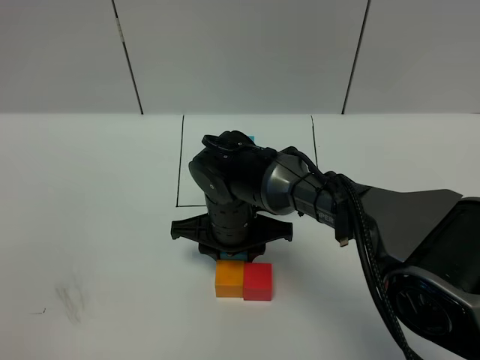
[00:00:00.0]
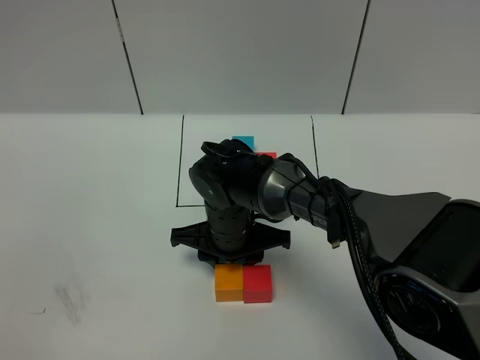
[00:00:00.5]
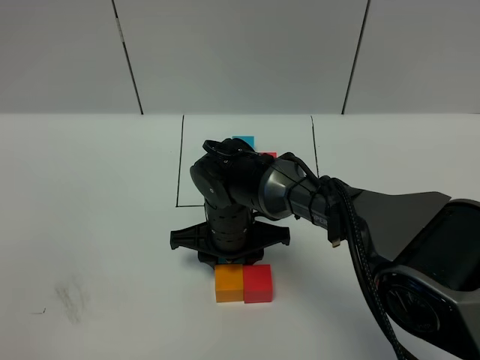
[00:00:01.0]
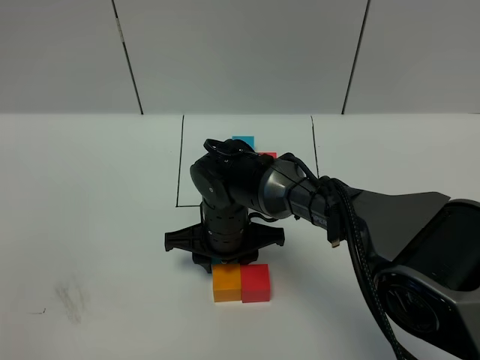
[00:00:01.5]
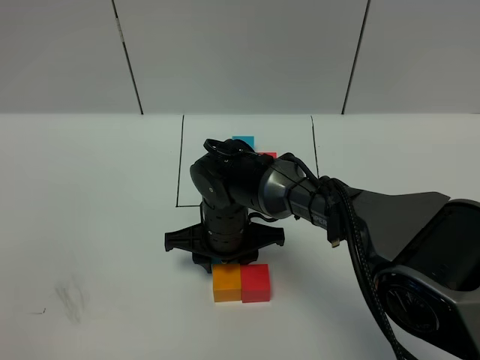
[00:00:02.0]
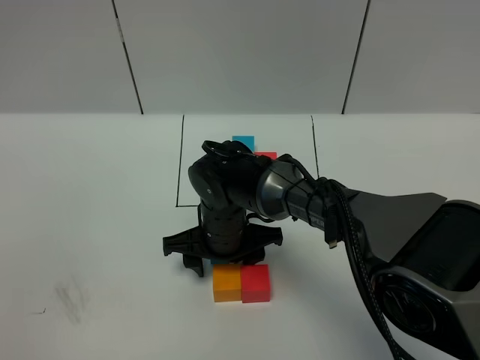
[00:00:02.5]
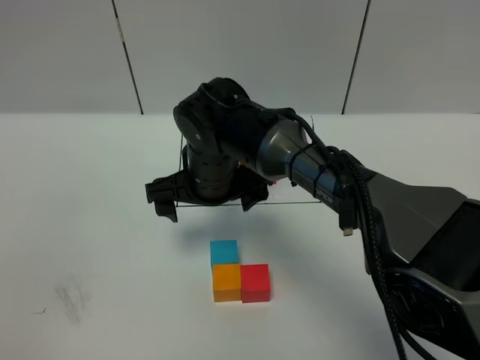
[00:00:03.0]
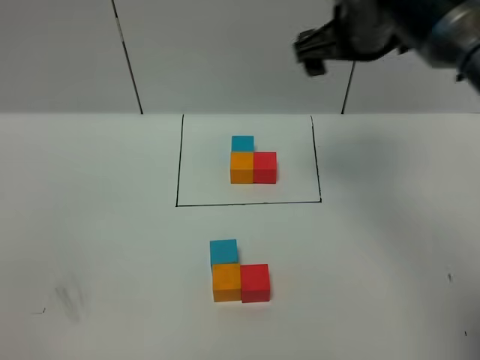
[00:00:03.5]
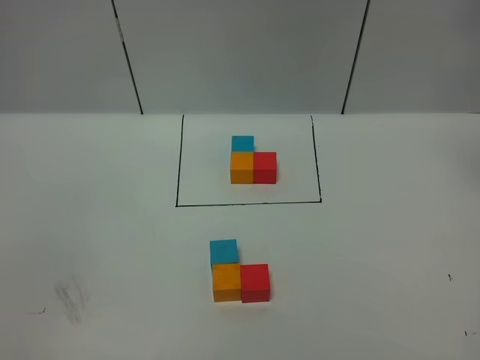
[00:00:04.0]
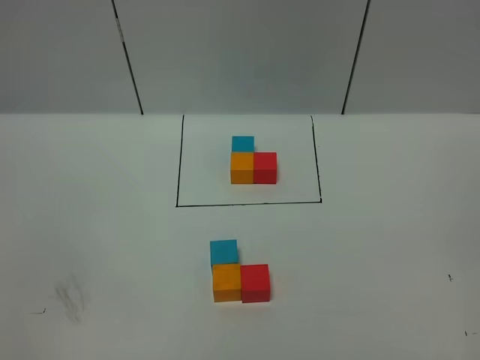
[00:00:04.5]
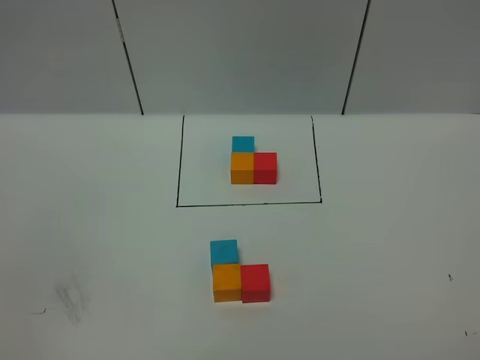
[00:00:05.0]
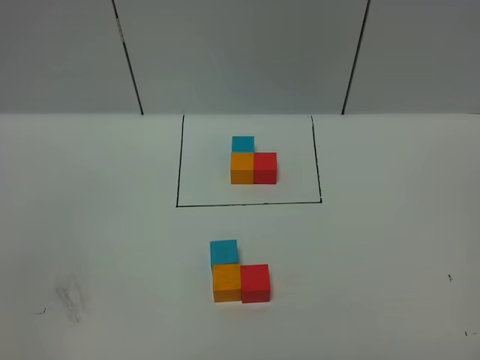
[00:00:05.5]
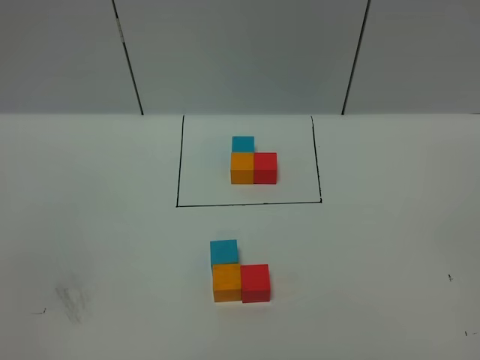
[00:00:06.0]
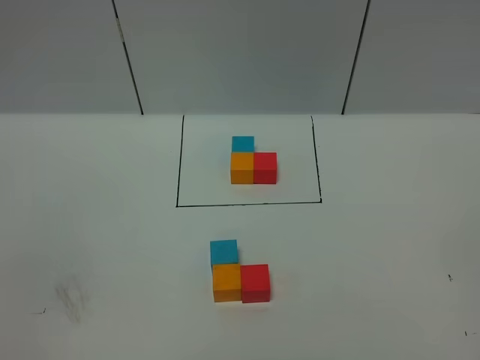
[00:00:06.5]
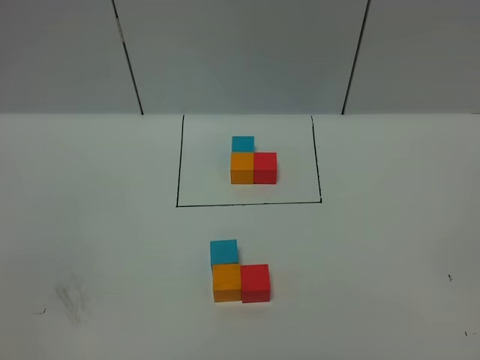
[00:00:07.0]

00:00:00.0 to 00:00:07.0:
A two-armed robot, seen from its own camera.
Task of the whole recording: According to the building block template in front, assemble the scattered blocks together.
Step, 00:00:00.0 to 00:00:02.0: Put the blue cube on the behind of the orange cube.
00:00:00.0 to 00:00:02.0: The grippers move only a little.
00:00:02.0 to 00:00:03.5: The right gripper goes approximately 30 cm upward and to the right, and opens.
00:00:03.5 to 00:00:05.0: The right gripper travels backward and to the right by approximately 50 cm.
